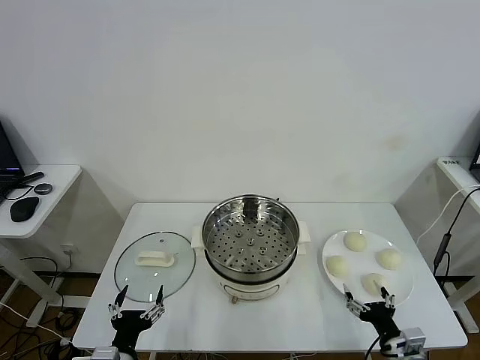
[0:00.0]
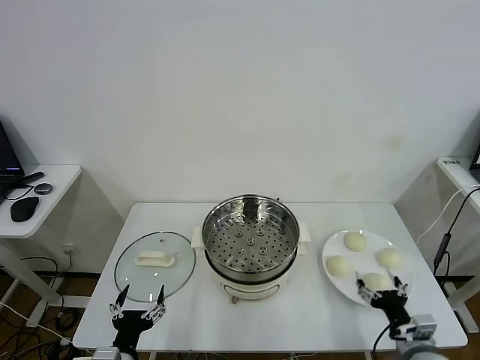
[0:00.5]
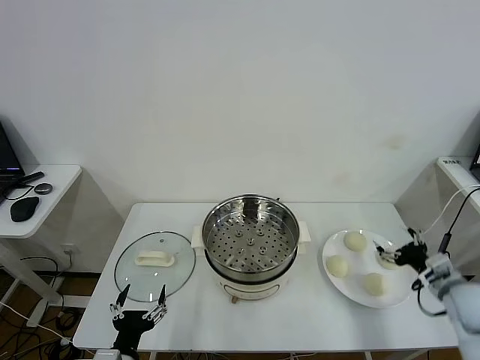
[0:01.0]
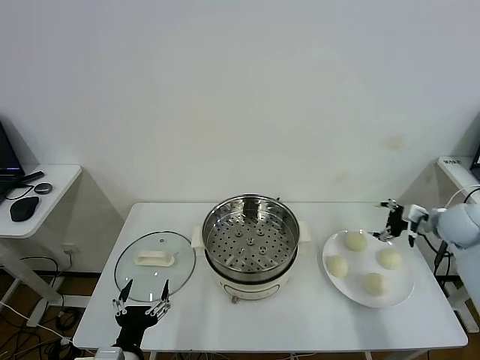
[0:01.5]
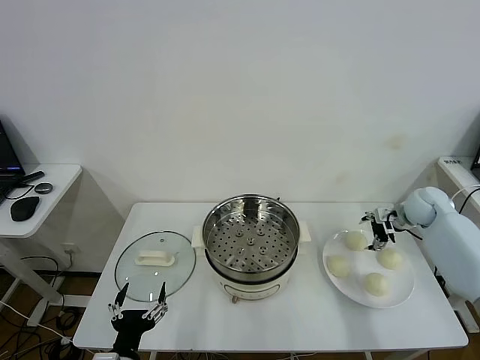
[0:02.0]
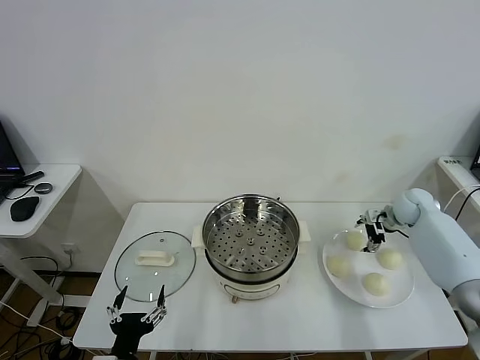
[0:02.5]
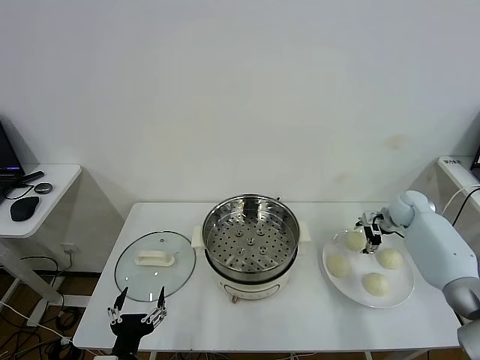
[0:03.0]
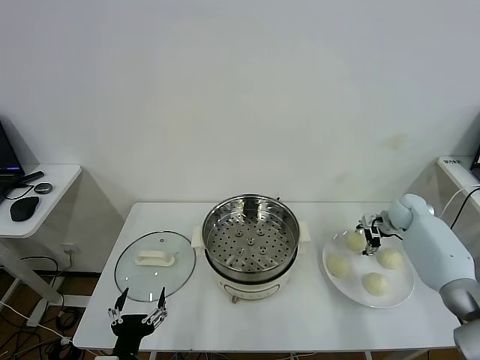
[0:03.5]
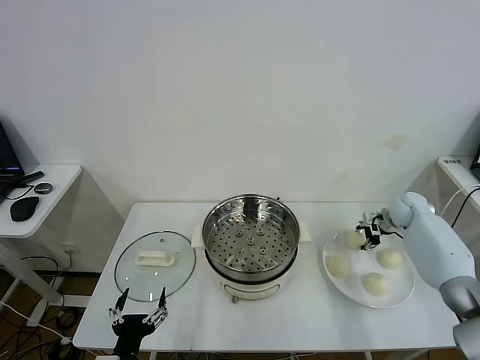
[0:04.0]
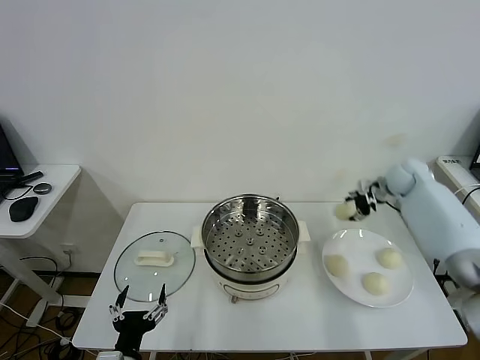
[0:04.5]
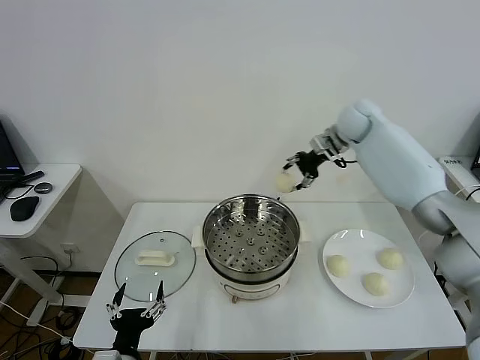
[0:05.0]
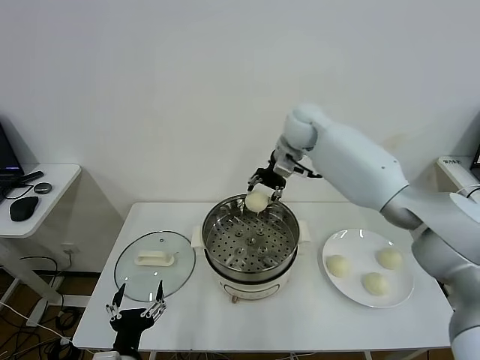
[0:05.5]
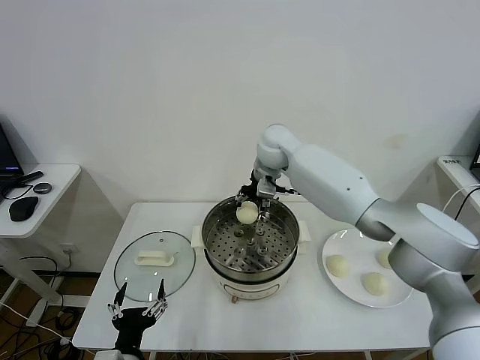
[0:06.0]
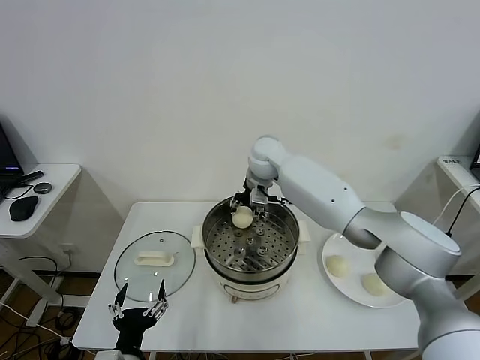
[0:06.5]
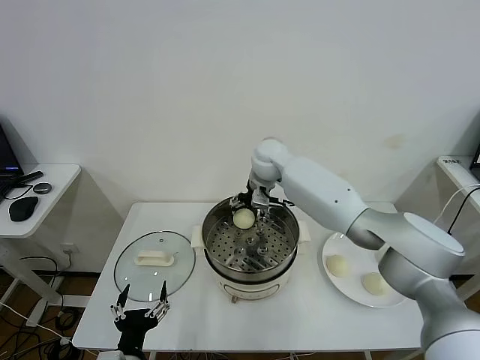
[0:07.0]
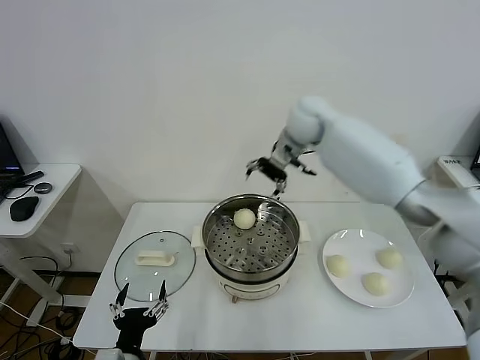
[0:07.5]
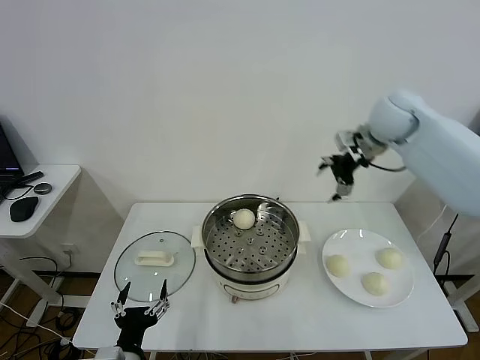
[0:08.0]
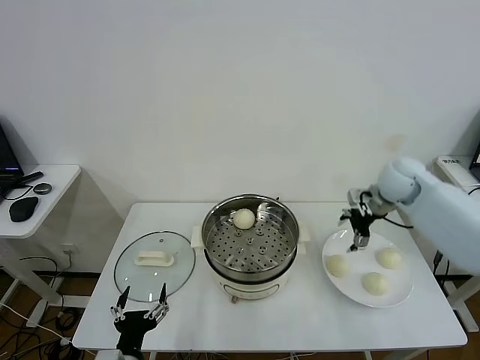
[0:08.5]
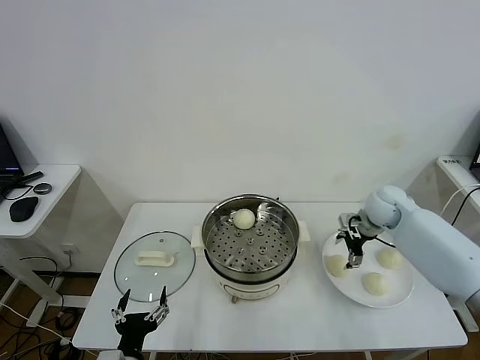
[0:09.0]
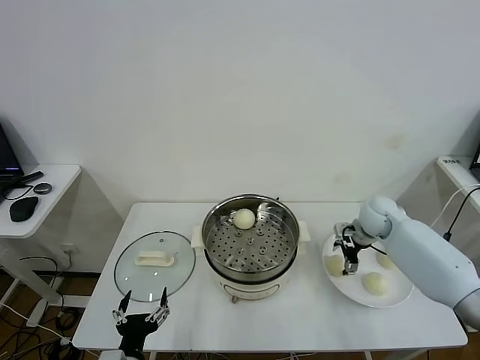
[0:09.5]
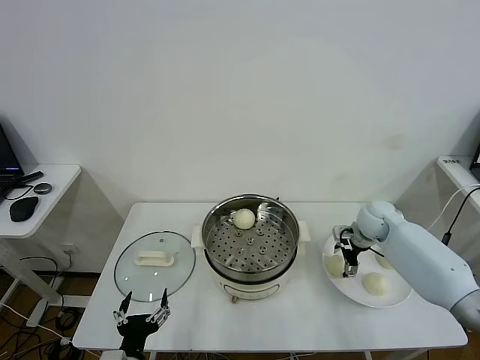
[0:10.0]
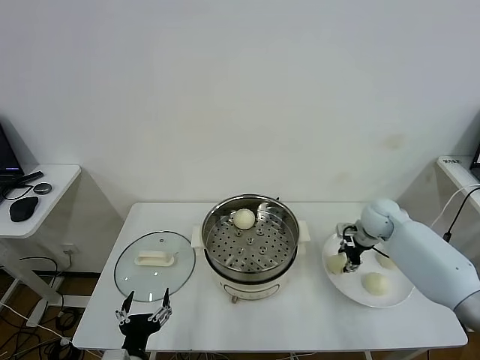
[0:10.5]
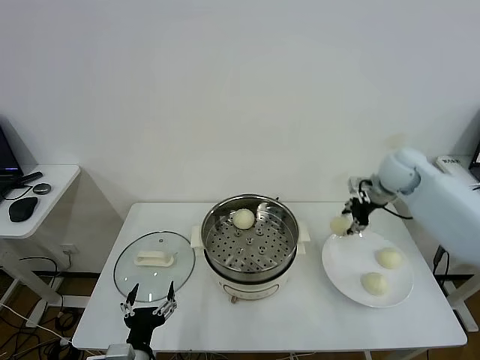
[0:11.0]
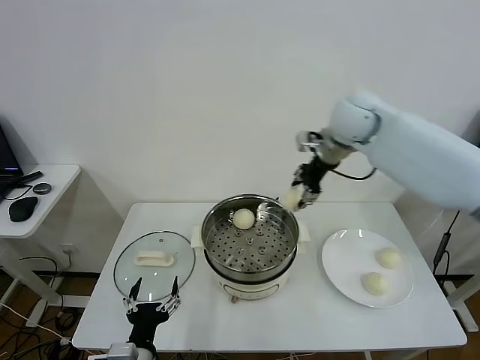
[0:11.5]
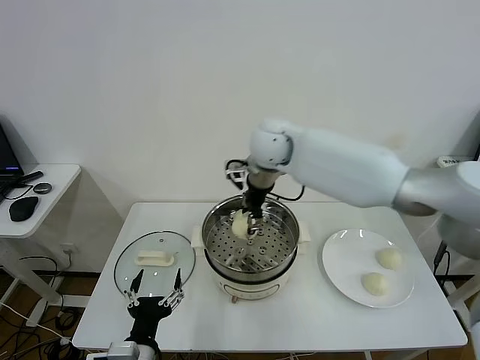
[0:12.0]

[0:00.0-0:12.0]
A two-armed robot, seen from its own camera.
Task of the whole recording: take steamed baozi put them in steamer.
Step, 0:00.0 to 0:03.5: Grasp the baozi in the plate with right gripper.
Step, 0:04.0 to 0:07.0: Place the baozi on the steamer with right gripper.
Step, 0:07.5 to 0:10.0: Grasp the baozi in the plate with right gripper.
0:02.0 to 0:04.0: The right gripper shifts by some 5 cm, and closes.
0:04.0 to 0:06.0: The right gripper moves to the left and upward, approximately 40 cm.
0:06.0 to 0:08.0: The right gripper goes approximately 25 cm to the right, and opens its fingers.
0:08.0 to 0:10.0: The right gripper is displaced downward by some 25 cm.
0:10.0 to 0:12.0: The right gripper is displaced to the left and upward by some 35 cm, and closes up; the left gripper ends up some 5 cm from where it was.

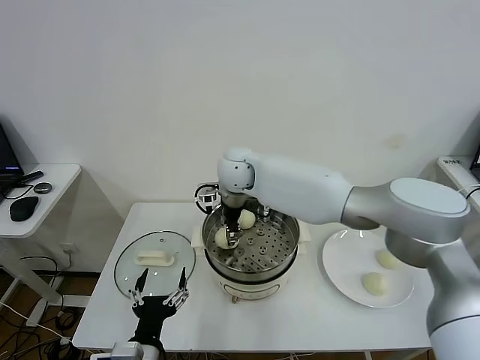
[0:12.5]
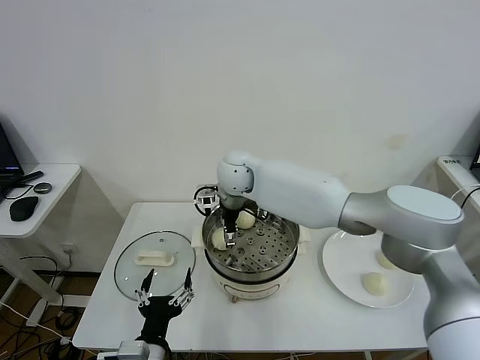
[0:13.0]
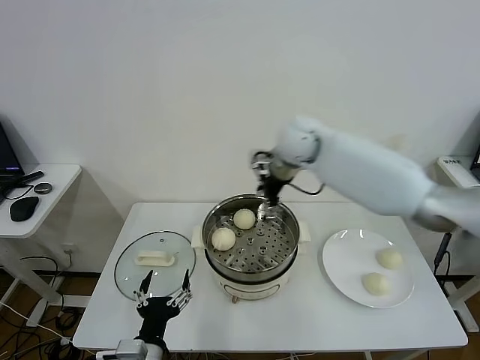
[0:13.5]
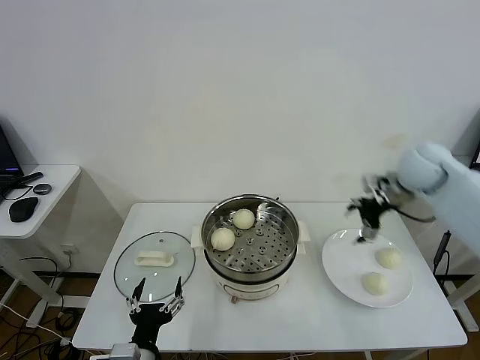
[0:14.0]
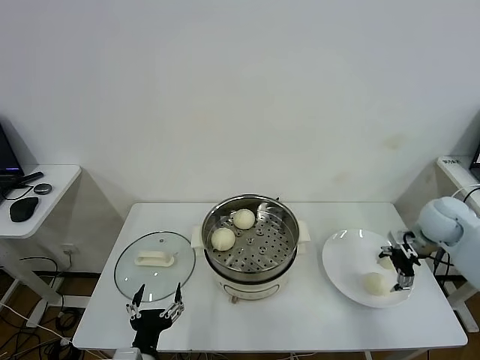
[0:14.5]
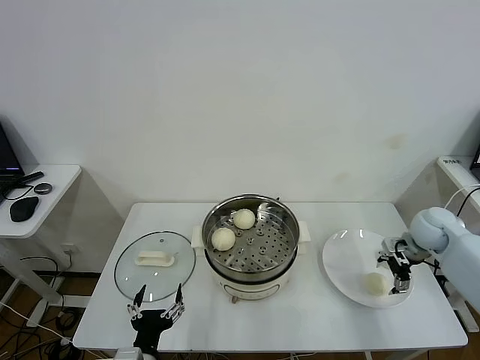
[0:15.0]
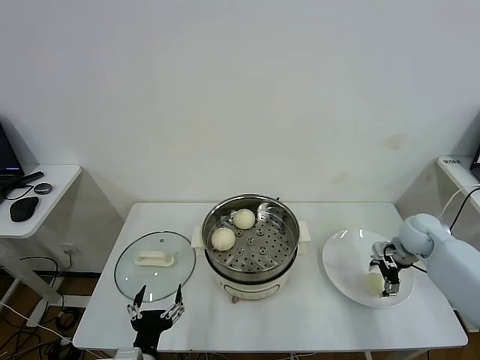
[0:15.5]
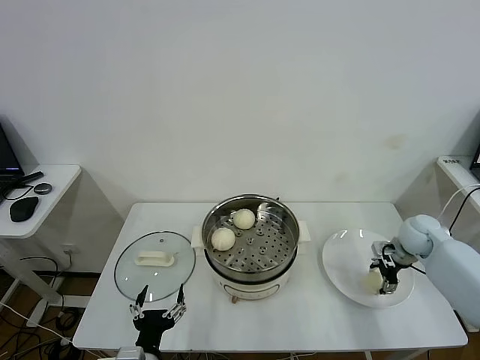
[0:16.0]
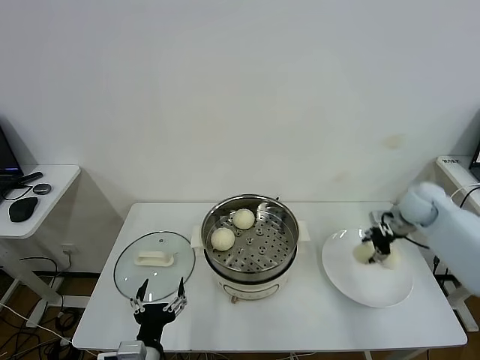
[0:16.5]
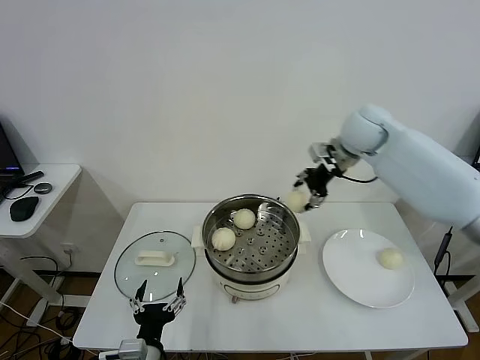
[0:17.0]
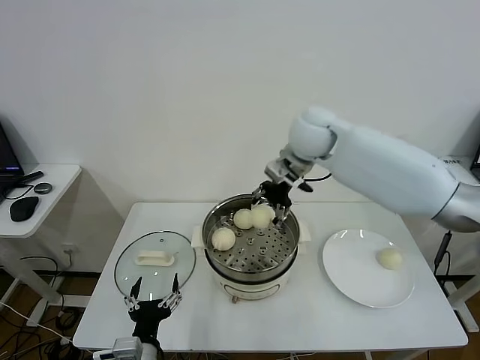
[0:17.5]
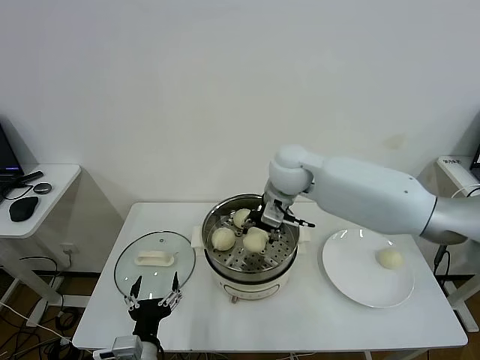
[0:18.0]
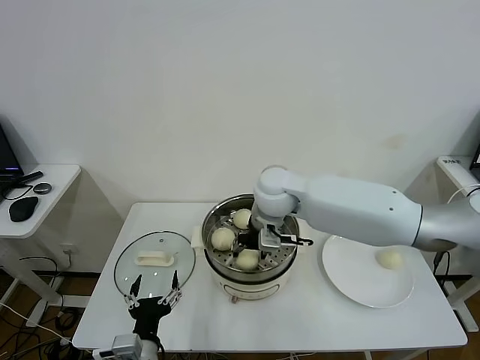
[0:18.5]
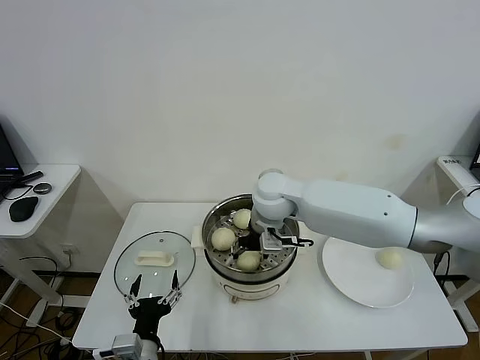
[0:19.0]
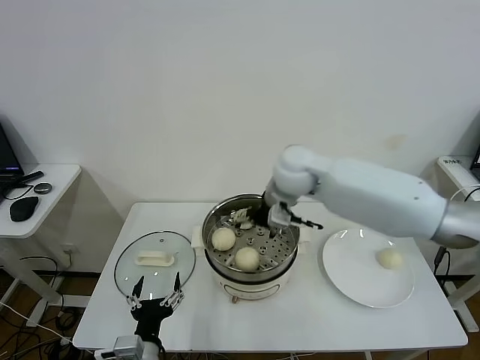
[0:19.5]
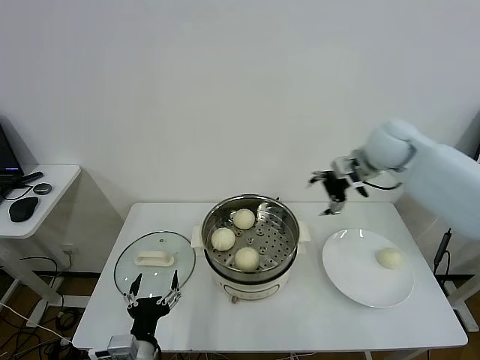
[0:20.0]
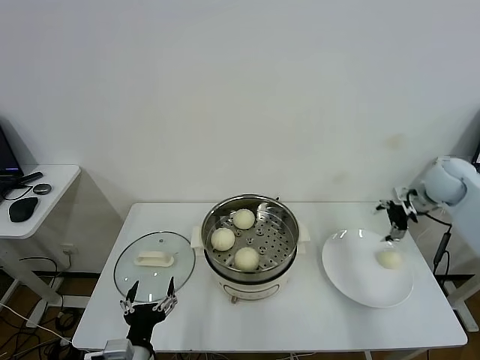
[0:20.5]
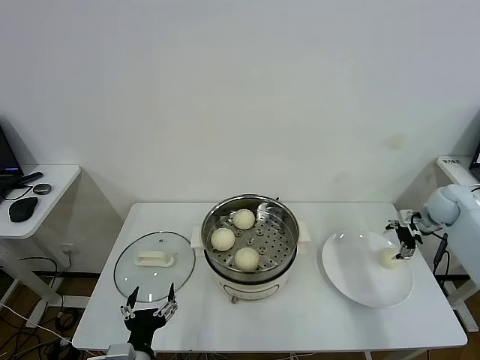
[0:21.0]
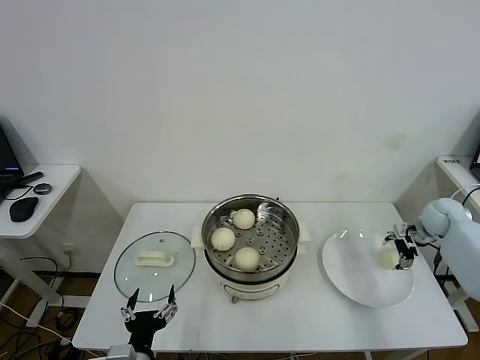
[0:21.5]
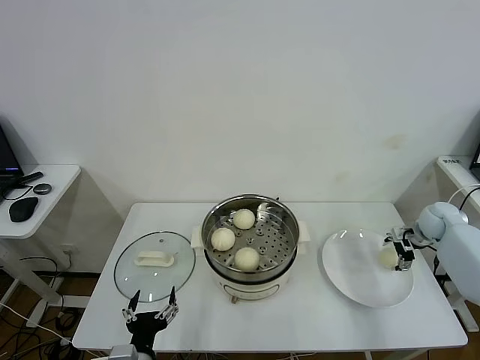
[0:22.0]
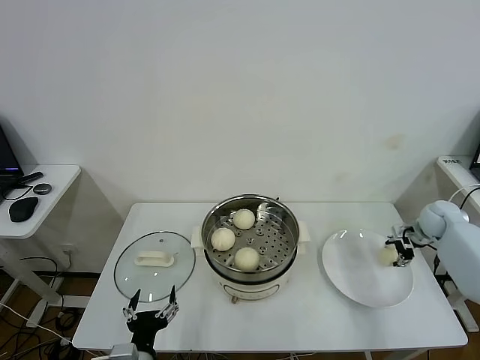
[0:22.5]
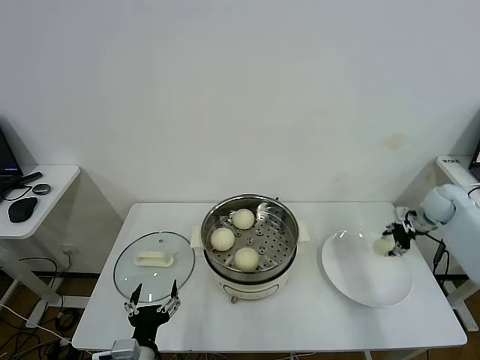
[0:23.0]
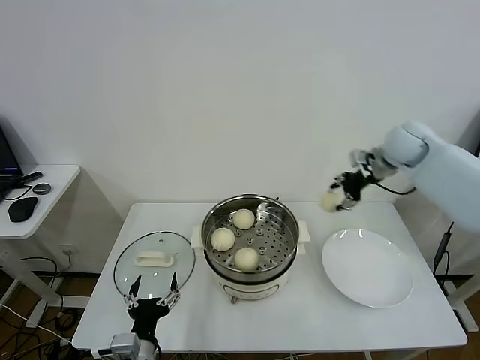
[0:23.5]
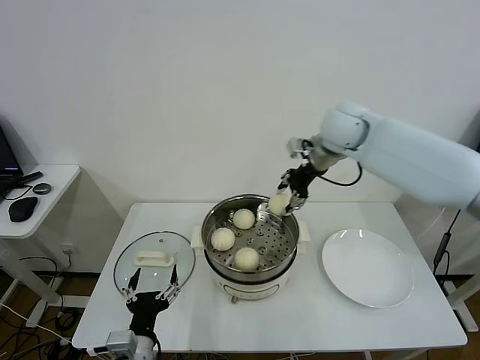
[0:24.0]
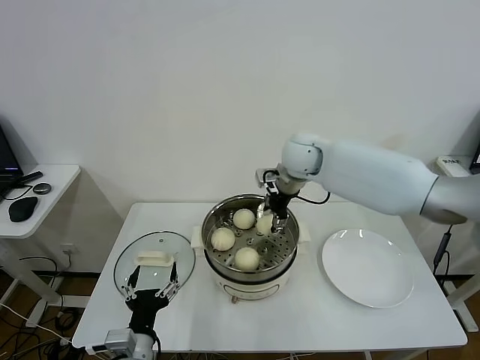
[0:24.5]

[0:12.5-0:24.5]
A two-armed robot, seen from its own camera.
Task of the whole recording: take steamed baozi put them in steamer.
Step, 0:13.5 to 0:16.0: Grasp the baozi in the plate with right gripper.
Step, 0:16.5 to 0:19.0: Place the baozi on the steamer with right gripper.
Step, 0:19.5 to 0:22.5: Grasp the baozi in the plate with right gripper.
0:12.5 to 0:14.5: The right gripper moves to the right, some 50 cm, and opens its fingers.
0:14.5 to 0:16.5: The right gripper moves forward, approximately 5 cm, goes downward and returns, roughly 10 cm each way, and closes.
0:16.5 to 0:18.5: The right gripper shifts some 35 cm to the left.
0:18.5 to 0:20.5: The right gripper moves to the right, about 40 cm, and opens its fingers.
0:20.5 to 0:22.5: The right gripper shifts some 15 cm downward and to the right, and closes.
0:22.5 to 0:24.5: The right gripper is displaced to the left and upward by some 40 cm.

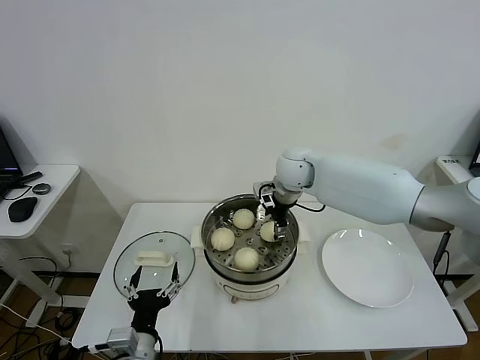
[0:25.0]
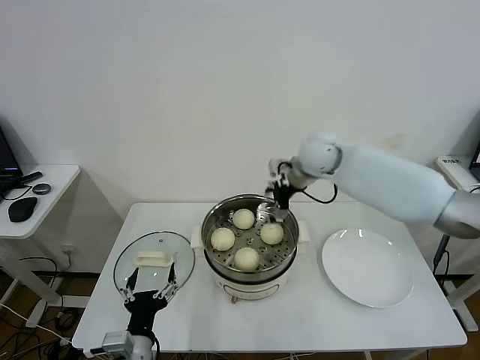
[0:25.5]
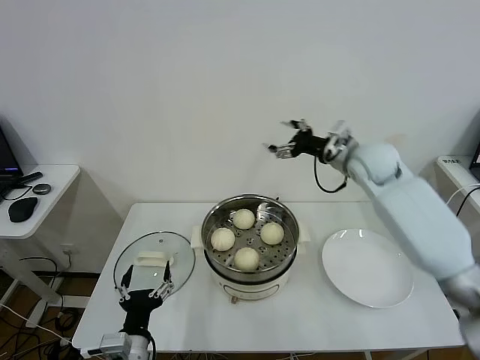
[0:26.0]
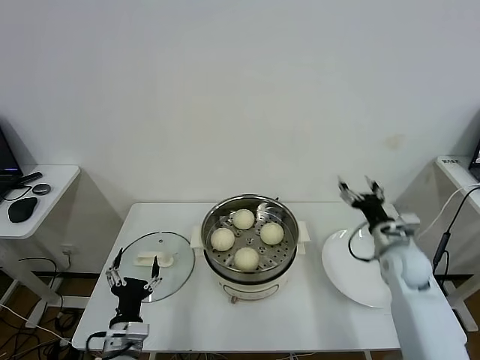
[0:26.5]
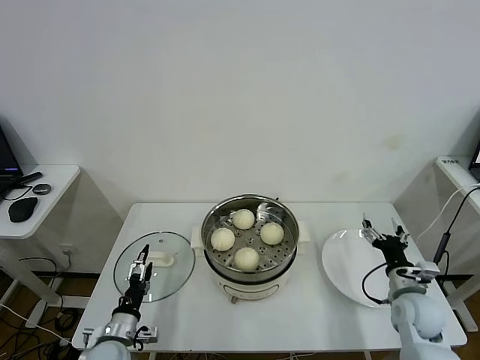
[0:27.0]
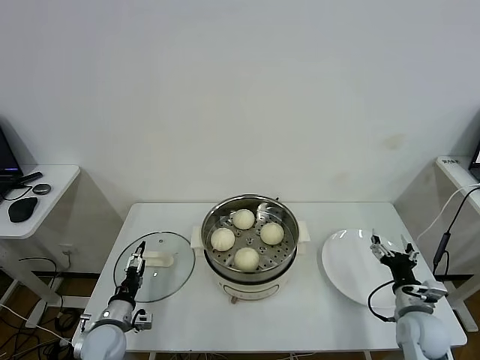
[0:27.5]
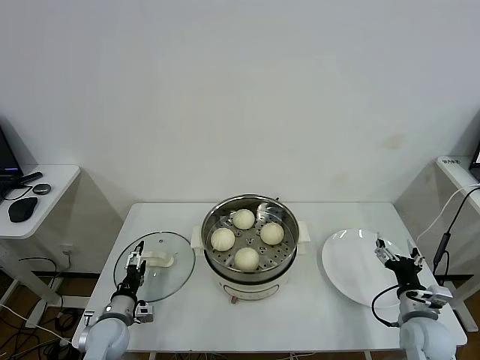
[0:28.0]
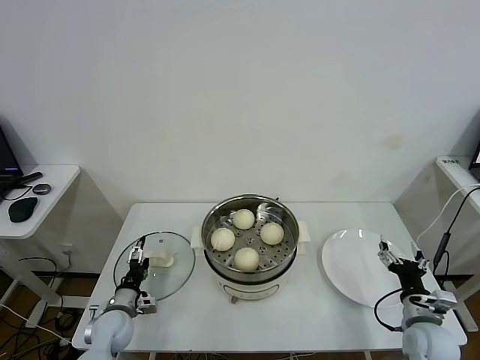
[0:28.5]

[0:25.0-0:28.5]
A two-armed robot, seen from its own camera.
Task of the whole recording: take steamed baozi put them in steamer.
0:25.0 to 0:27.0: The right gripper goes approximately 40 cm to the right, backward and downward, and opens its fingers. Meanwhile the left gripper shifts some 15 cm downward, to the left and forward.
0:27.0 to 0:28.5: The left gripper heads forward, covering roughly 10 cm; the right gripper travels backward by approximately 5 cm.
